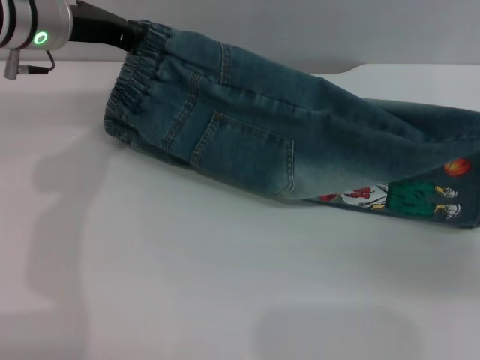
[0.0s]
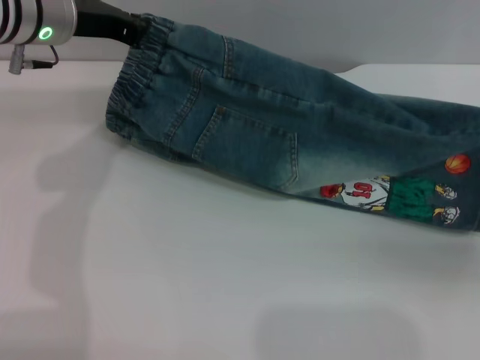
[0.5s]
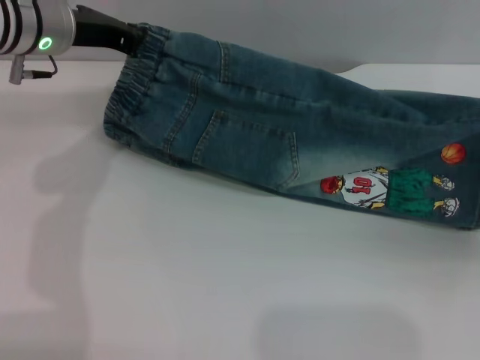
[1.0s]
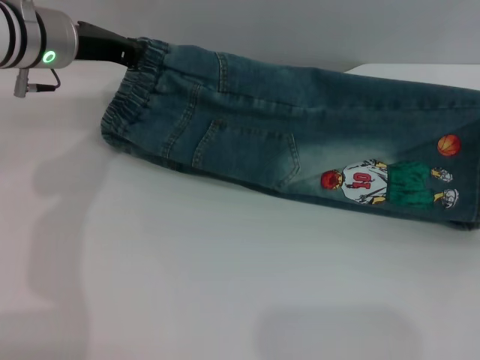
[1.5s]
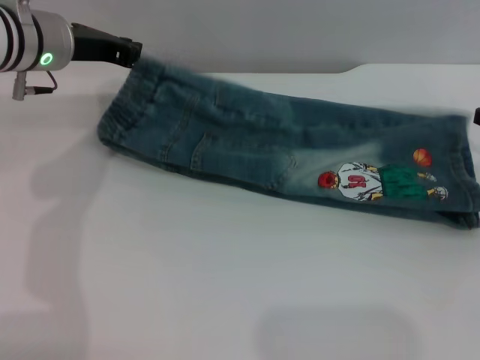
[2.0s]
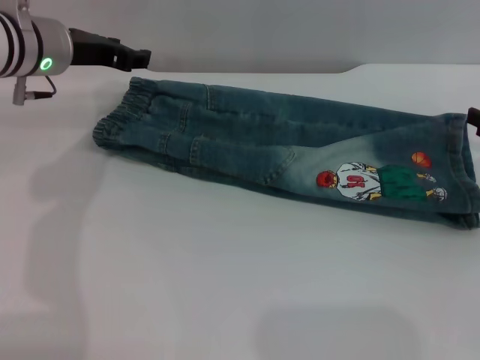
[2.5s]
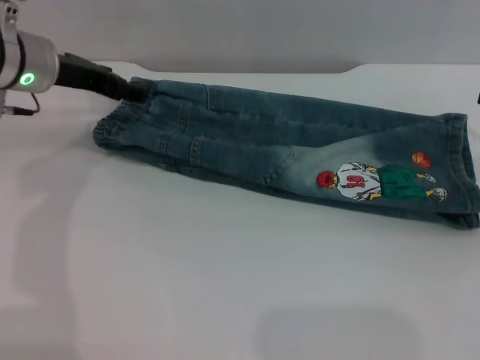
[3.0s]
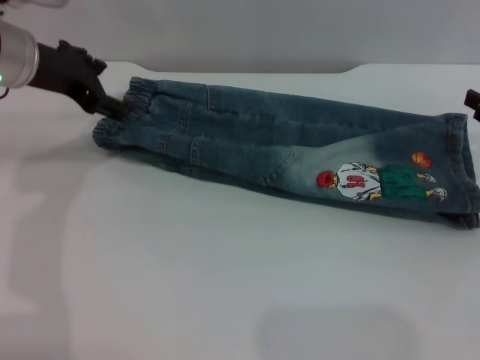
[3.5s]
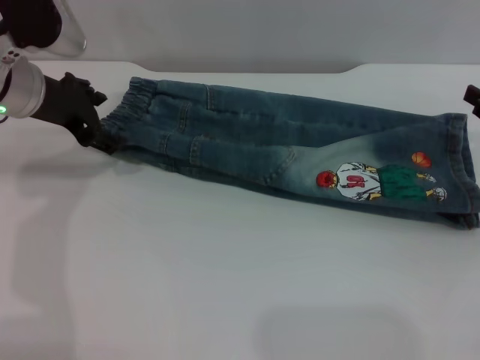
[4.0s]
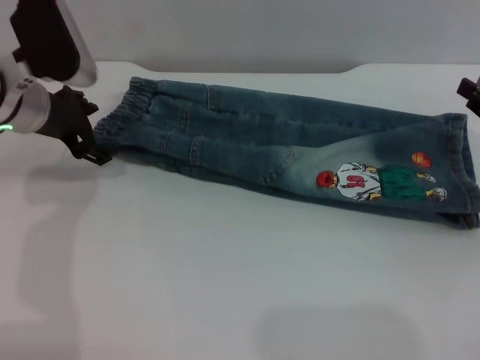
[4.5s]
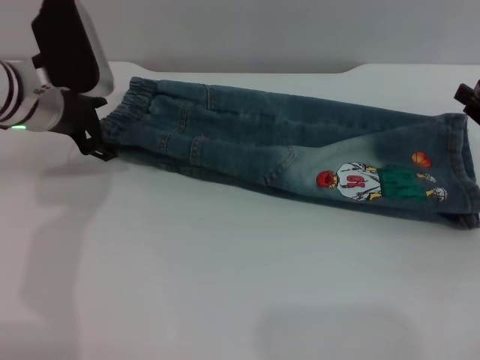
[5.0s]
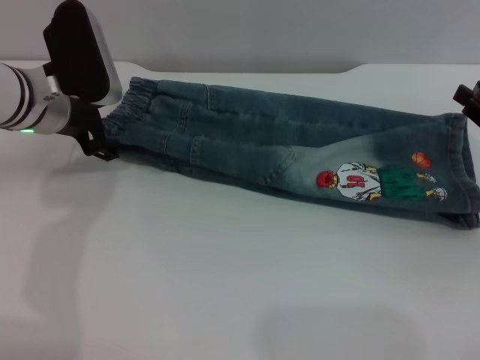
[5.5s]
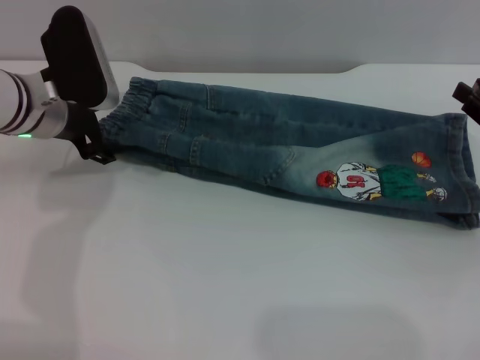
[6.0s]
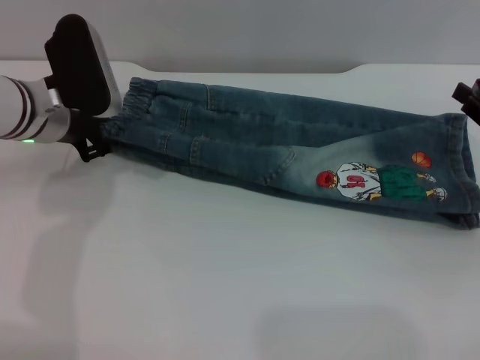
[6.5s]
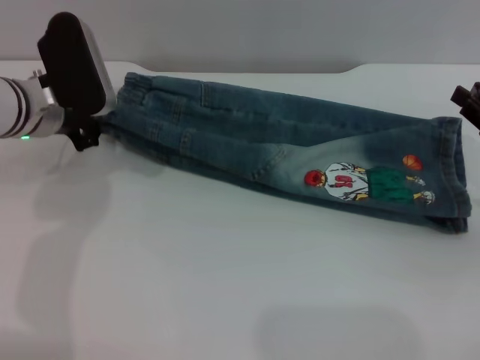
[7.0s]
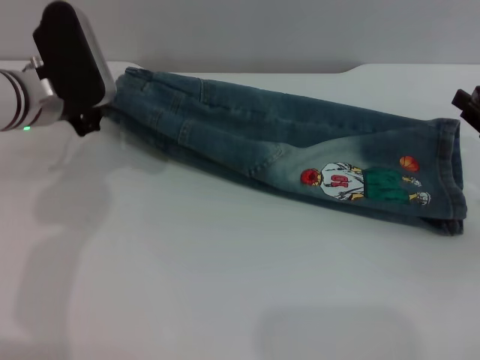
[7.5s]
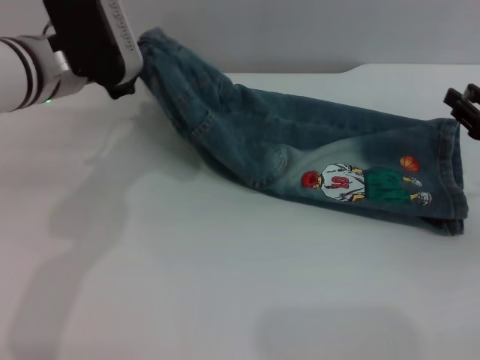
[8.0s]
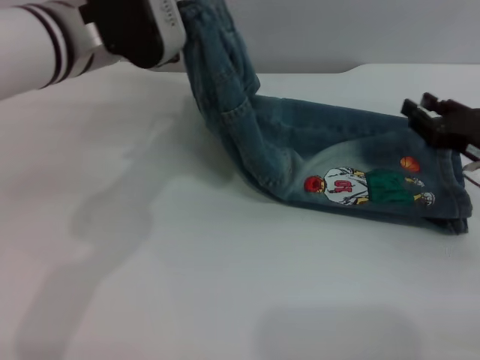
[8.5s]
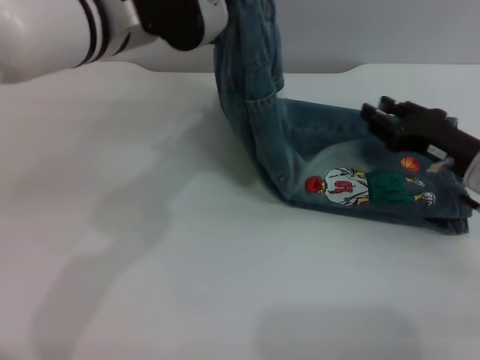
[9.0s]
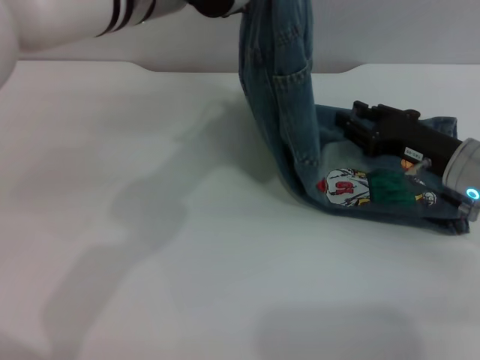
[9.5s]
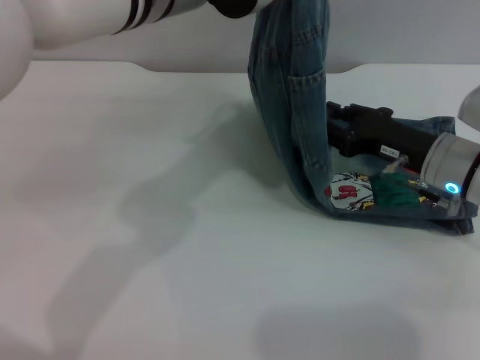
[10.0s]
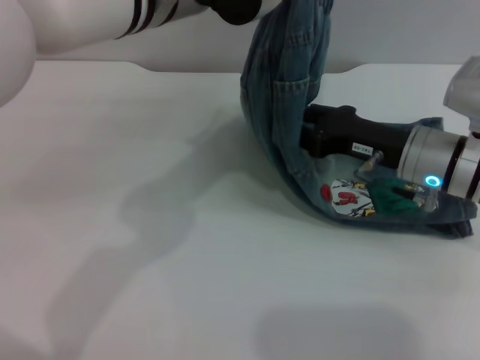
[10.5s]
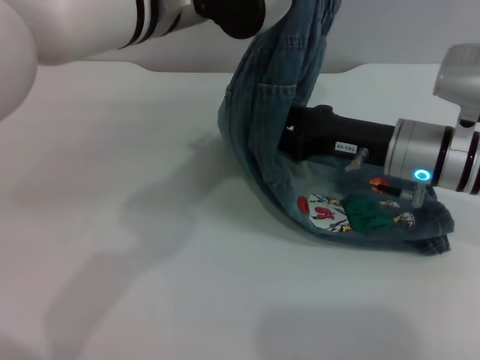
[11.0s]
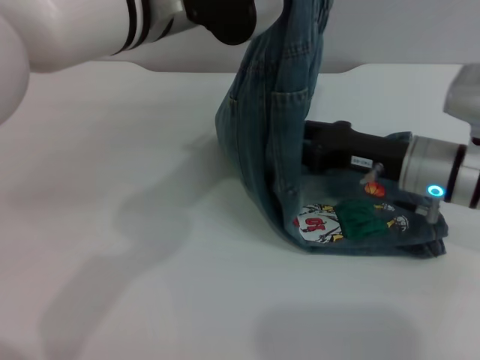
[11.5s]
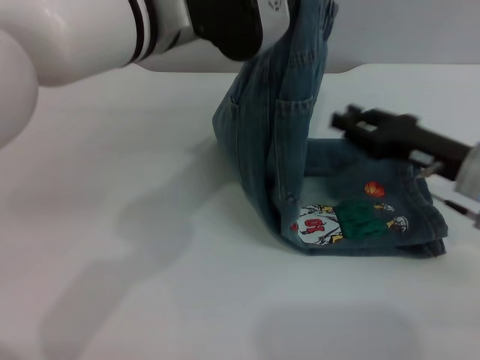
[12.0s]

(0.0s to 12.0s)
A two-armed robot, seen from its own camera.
Step, 0.0s - 2.5s: Fold the bottom of the pants upward with both grippers.
0.0s - 2.0s: The right gripper is displaced forward by about 5 cm.
2.0s - 4.0s: The left gripper opens. The right gripper opens up.
4.0s - 6.0s: The grippers stay close to where they were, moving slightly.
6.0s - 8.0s: The left gripper moves upward, some 5 cm, and closes.
8.0s - 10.0s: The left gripper goes about 15 cm to the right and upward; the right gripper travels to the left by about 10 cm.

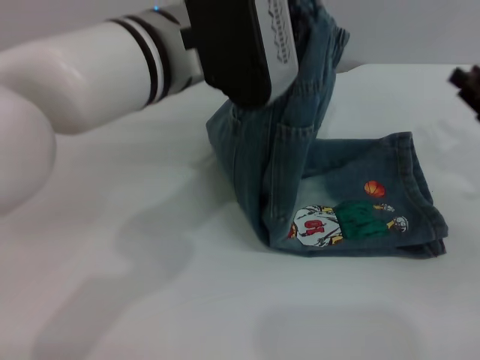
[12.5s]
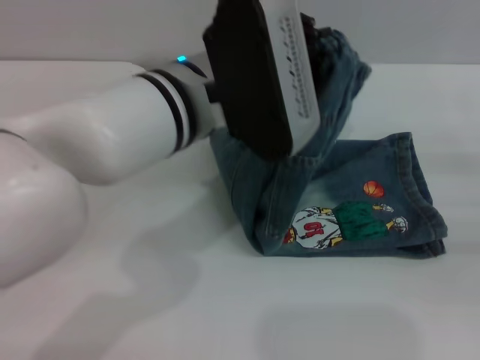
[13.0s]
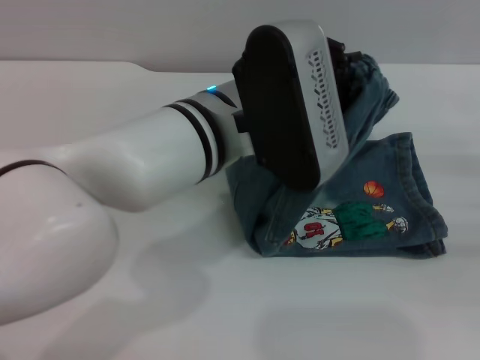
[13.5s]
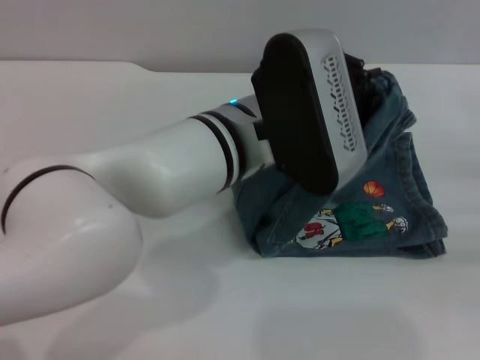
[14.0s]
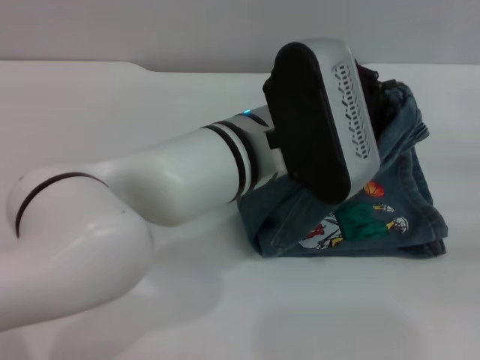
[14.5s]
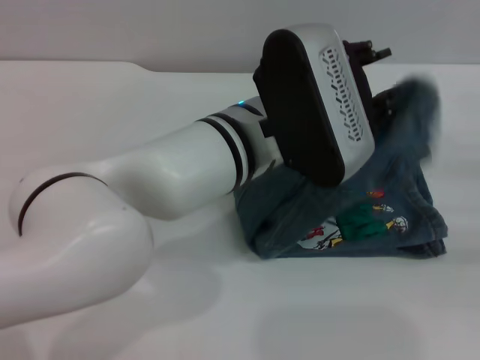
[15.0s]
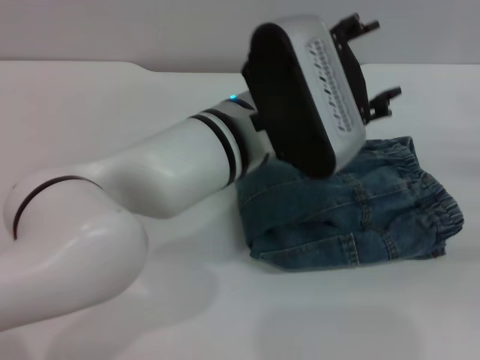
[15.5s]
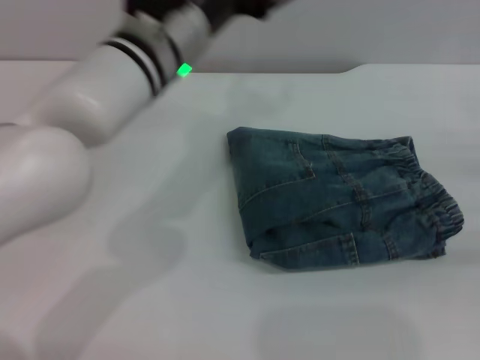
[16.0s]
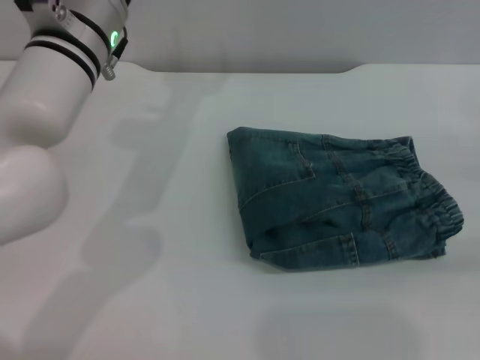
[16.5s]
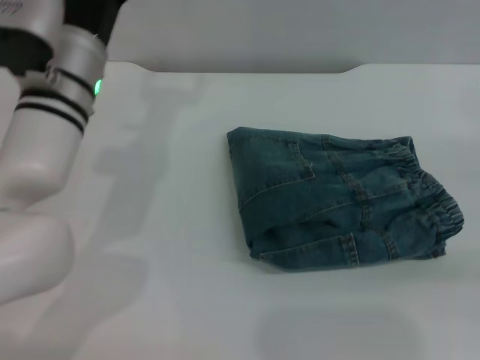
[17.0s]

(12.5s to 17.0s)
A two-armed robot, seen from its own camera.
Step, 12.5s - 15.0s: Fold the pants from left to right with the left gripper.
12.5s - 14.5s: The left gripper heads downward and to the right, covering approximately 10 cm. Meanwhile the right gripper travels to the right by about 10 cm.
14.5s - 17.0s: The left gripper moves to the left and forward, roughly 15 cm, and opens up.

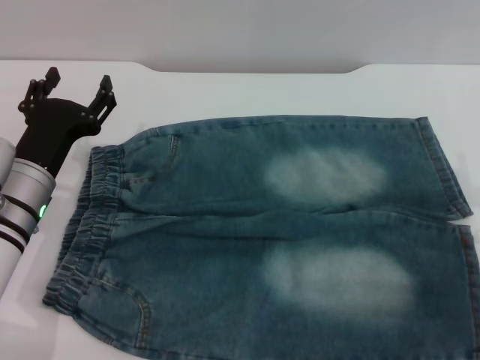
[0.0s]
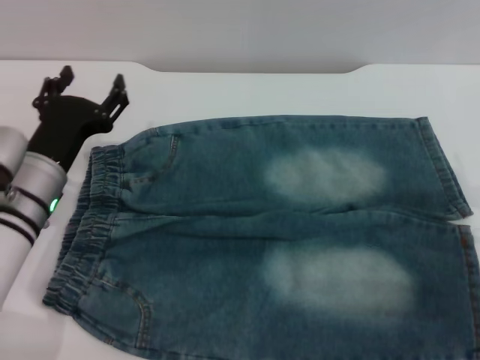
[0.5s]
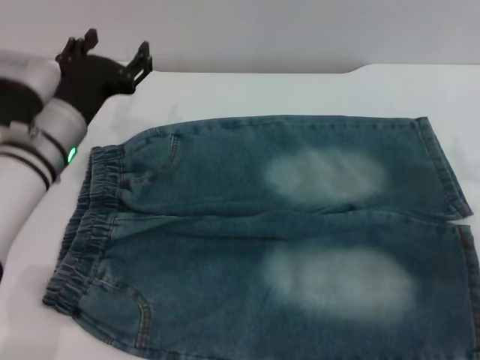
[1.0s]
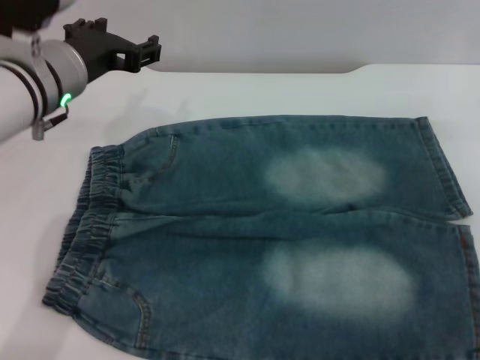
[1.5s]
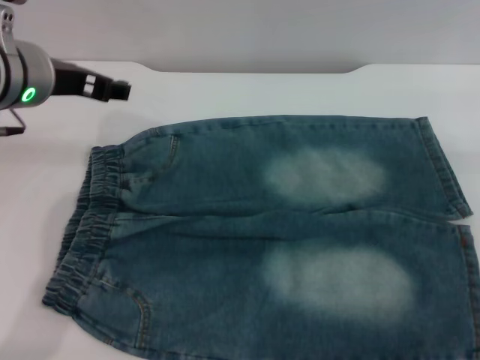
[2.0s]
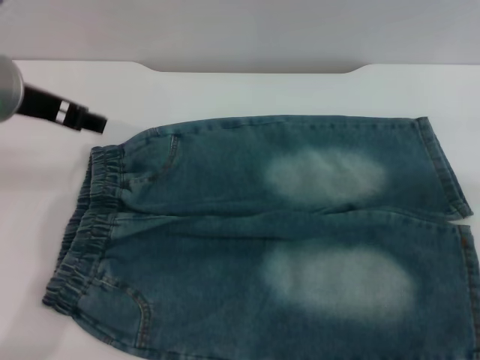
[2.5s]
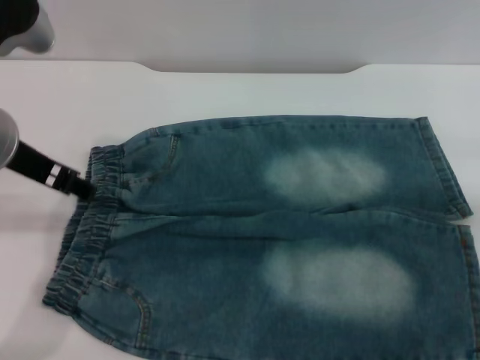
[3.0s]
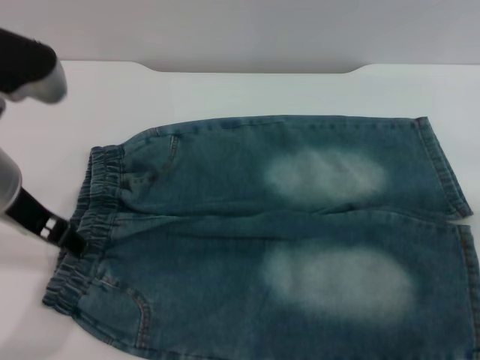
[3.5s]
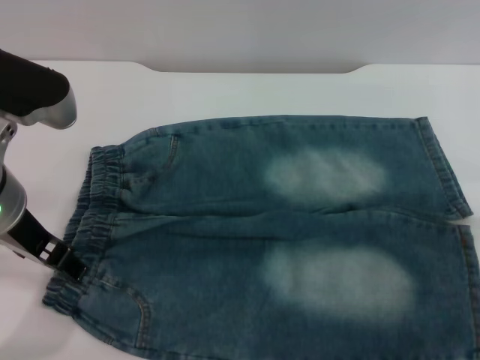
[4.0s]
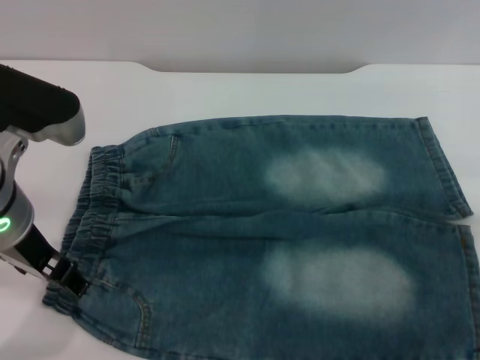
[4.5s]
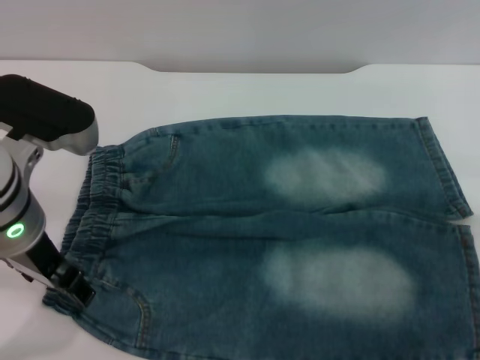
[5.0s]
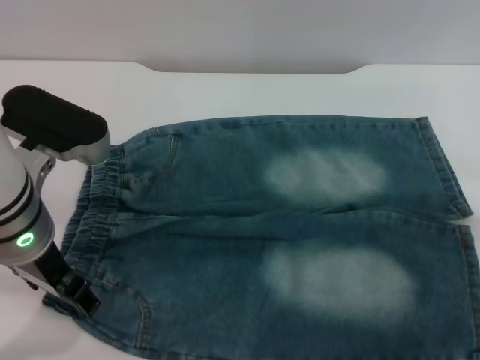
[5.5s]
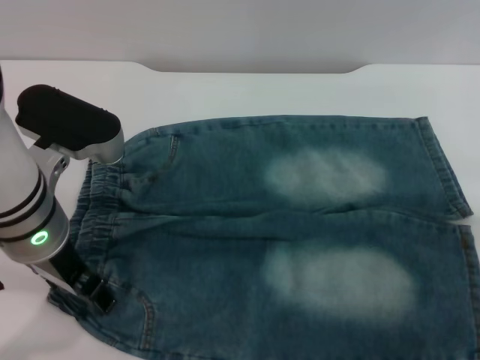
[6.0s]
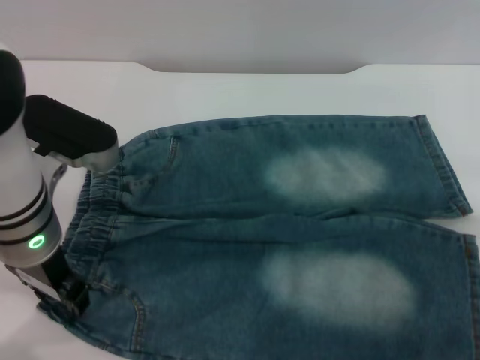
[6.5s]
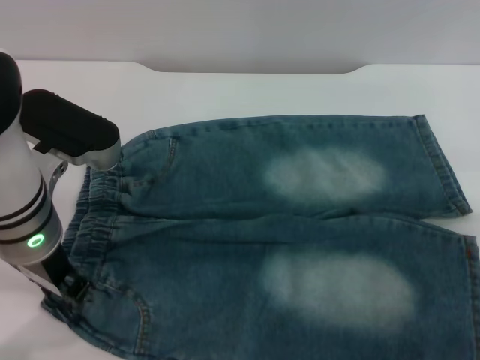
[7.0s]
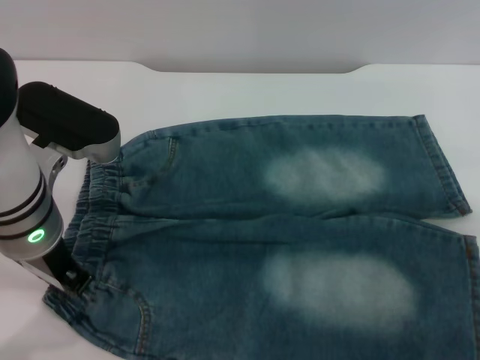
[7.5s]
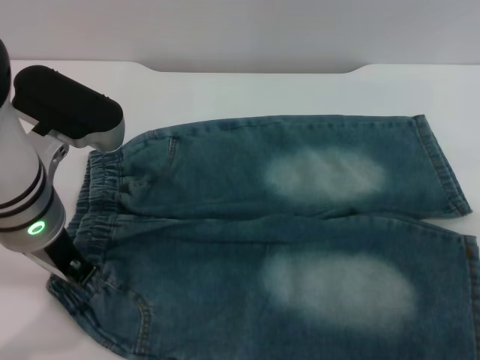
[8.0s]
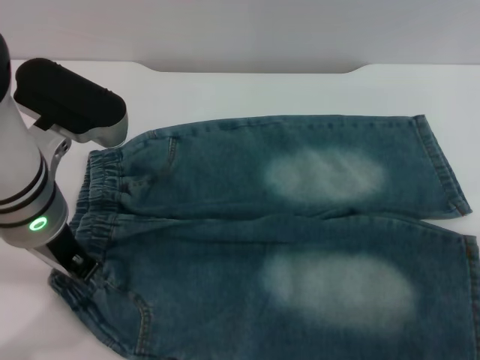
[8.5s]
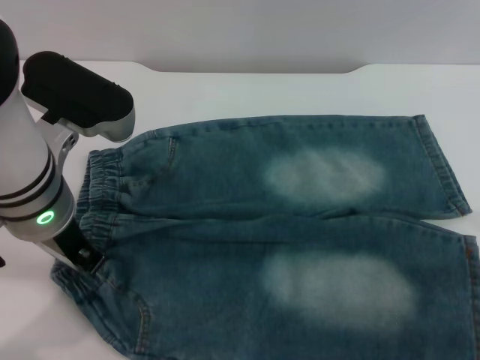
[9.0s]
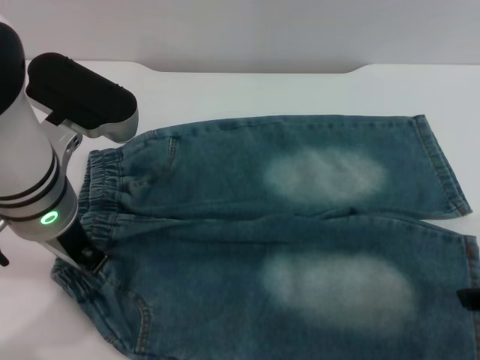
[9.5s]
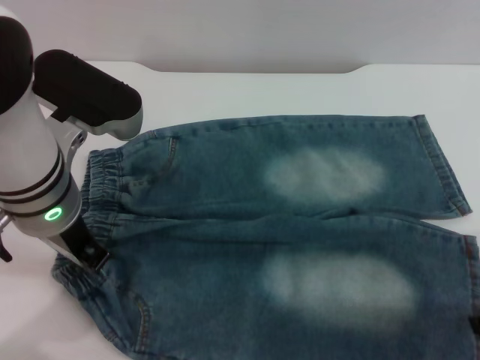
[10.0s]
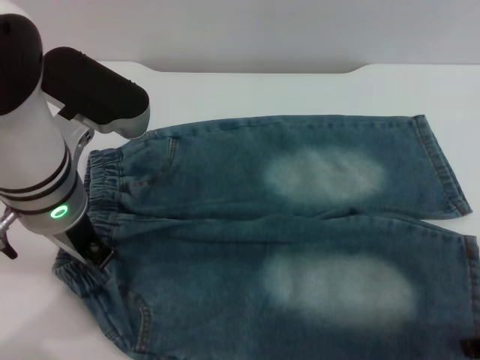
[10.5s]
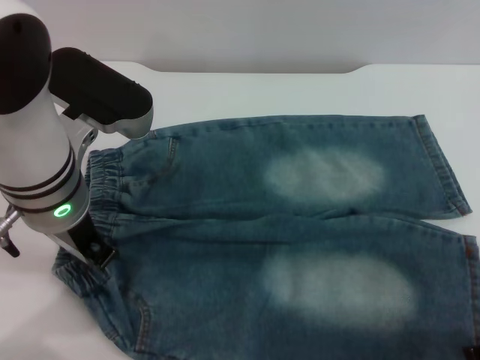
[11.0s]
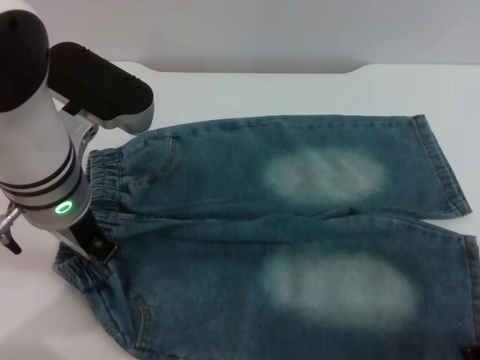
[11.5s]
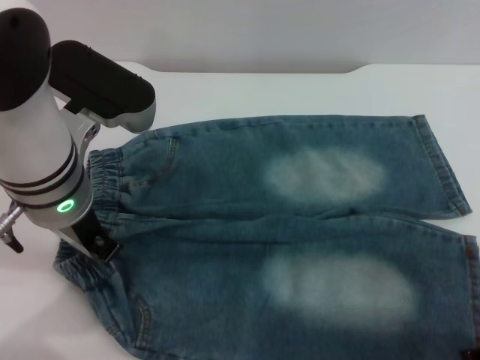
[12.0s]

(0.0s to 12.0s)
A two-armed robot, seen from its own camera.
0.0s - 2.0s: The left gripper is displaced upward by some 15 cm.
2.0s - 4.0s: The left gripper travels backward by approximately 5 cm.
4.0s - 6.0s: The grippers stay close to where they were, moving slightly.
6.0s - 8.0s: The left gripper closes up.
10.0s - 12.0s: The grippers stay close to where they were, moving slightly.
